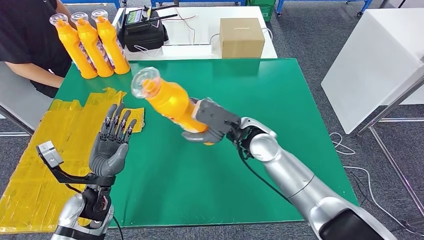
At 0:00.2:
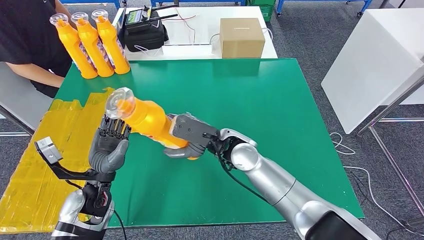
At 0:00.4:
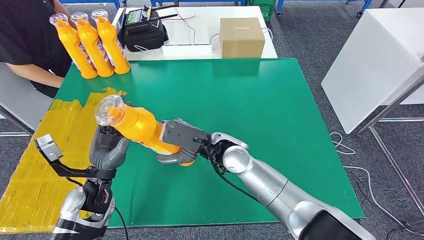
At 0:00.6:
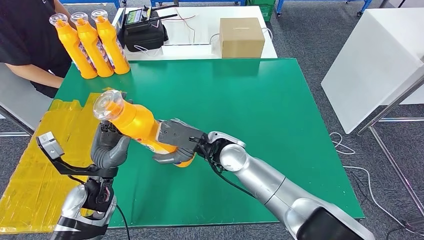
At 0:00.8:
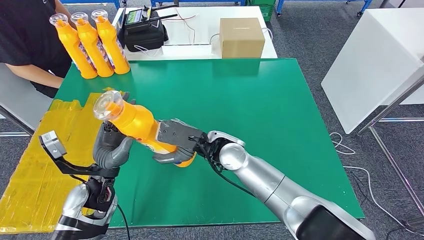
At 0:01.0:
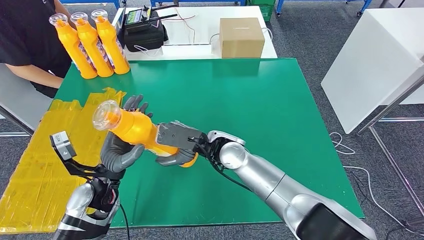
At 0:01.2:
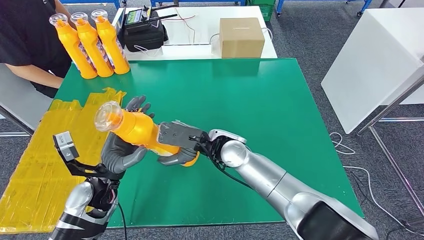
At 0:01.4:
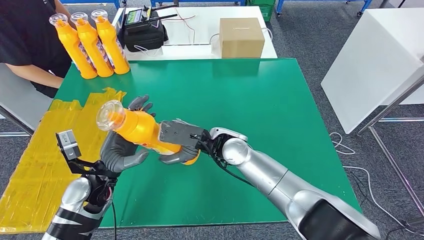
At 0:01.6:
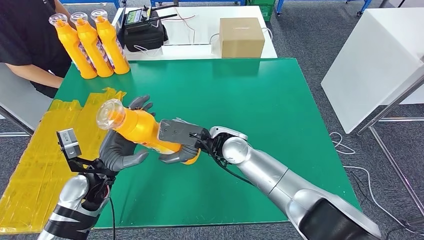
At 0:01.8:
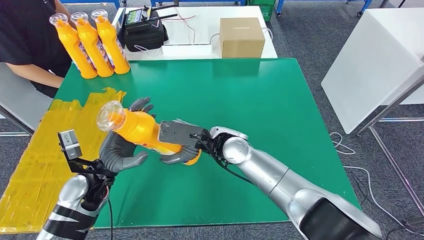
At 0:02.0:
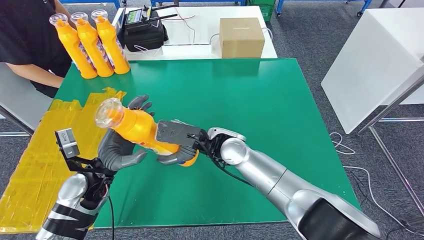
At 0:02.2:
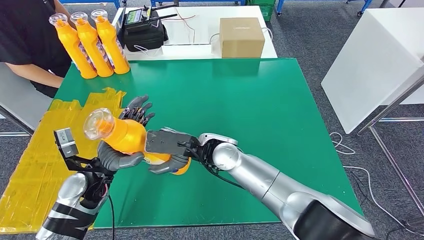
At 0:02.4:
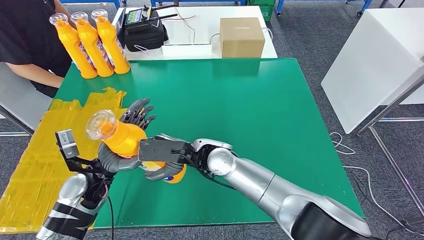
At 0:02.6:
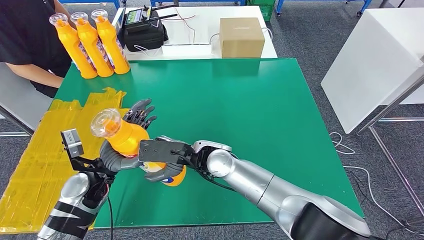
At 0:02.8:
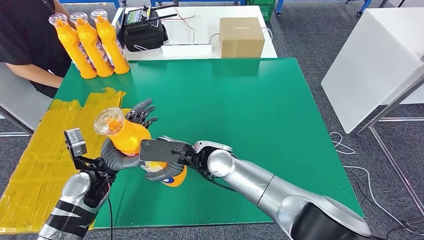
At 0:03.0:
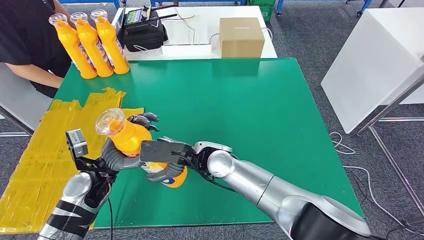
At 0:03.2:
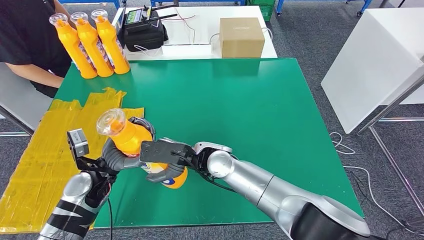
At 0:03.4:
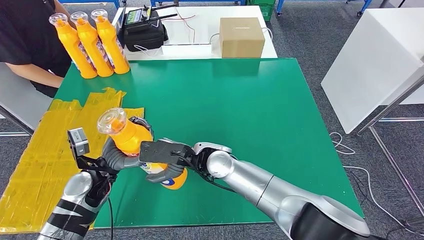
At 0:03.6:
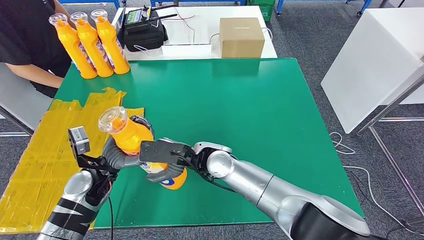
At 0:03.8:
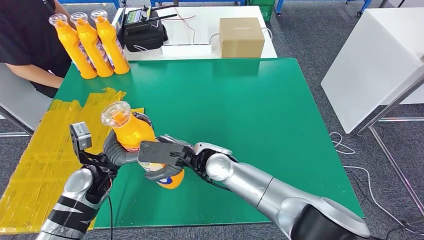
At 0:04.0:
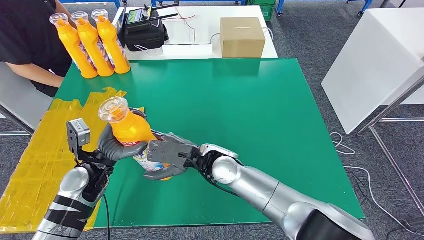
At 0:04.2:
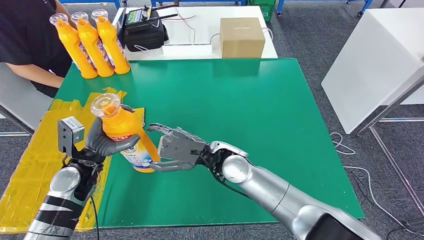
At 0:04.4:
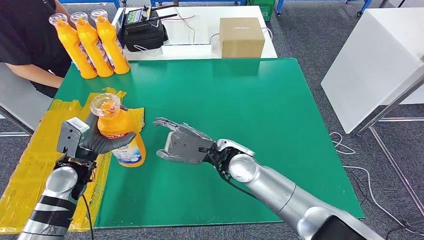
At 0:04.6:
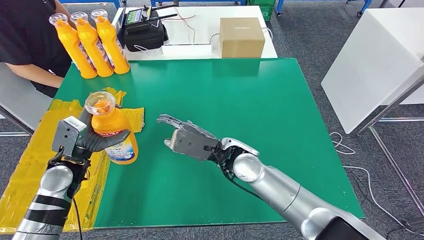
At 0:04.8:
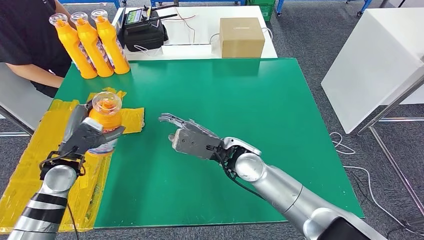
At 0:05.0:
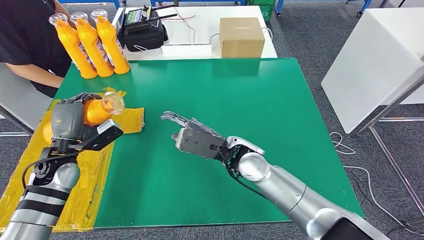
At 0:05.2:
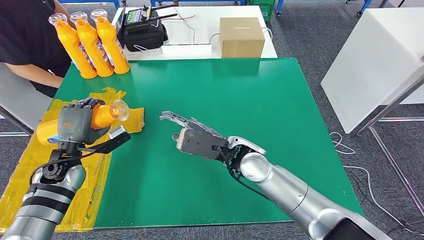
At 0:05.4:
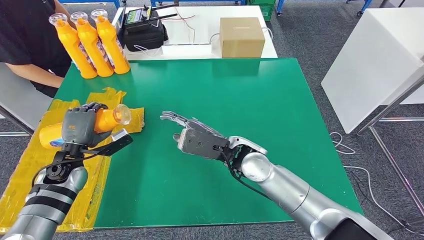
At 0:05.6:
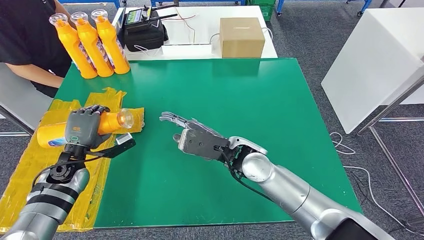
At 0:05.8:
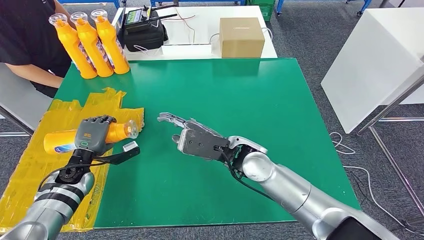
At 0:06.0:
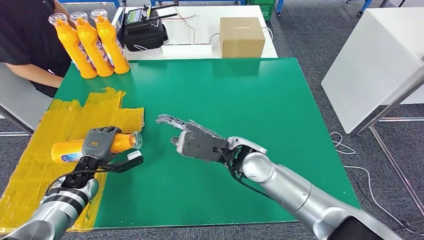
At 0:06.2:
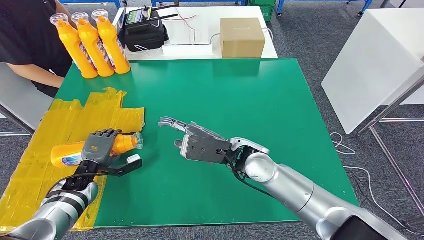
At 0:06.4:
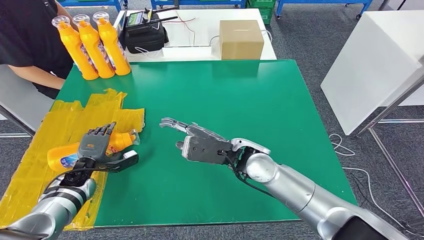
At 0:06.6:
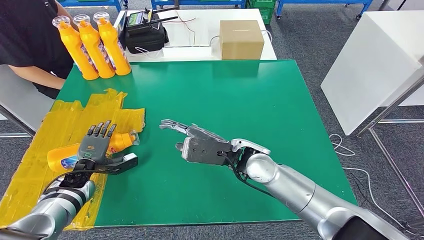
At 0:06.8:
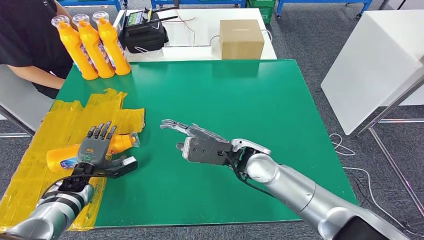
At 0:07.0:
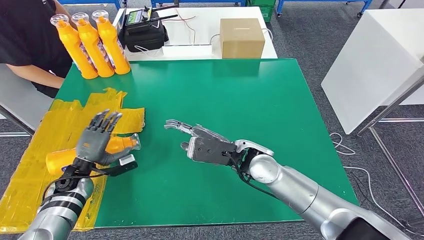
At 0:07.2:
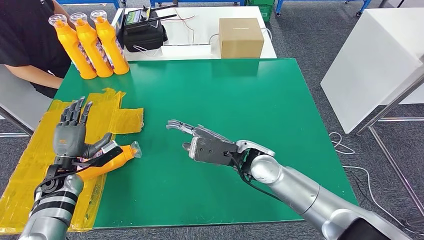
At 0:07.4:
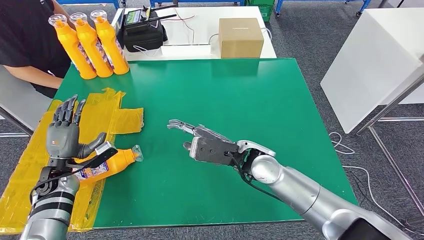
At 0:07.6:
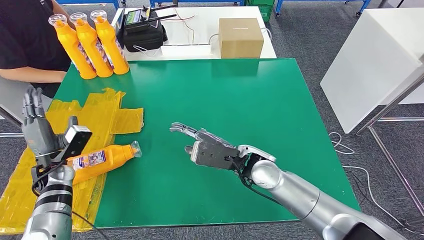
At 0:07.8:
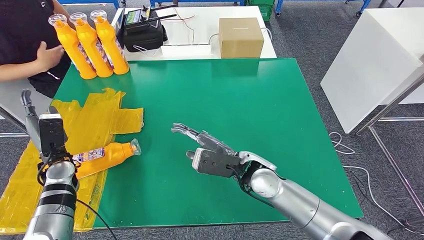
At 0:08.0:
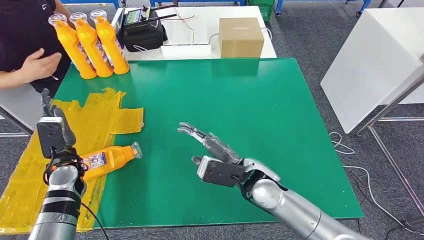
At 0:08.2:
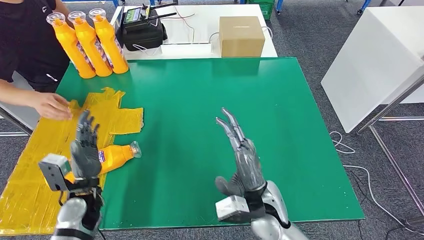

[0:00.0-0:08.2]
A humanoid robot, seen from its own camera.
Step, 0:02.0 to 0:08.2: Flip the fast-moving consumer goods bottle to the front side.
0:00.0 to 0:01.6: The right hand travels to the left by approximately 5 cm.
0:01.6 to 0:03.2: The right hand ends up some 5 cm from where it was.
0:03.2 to 0:05.0: The right hand is displaced to the right by some 5 cm; the left hand moves to the left, about 10 cm.
